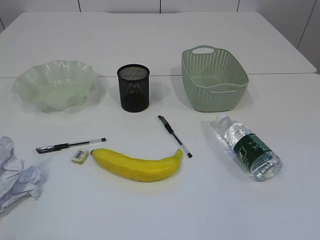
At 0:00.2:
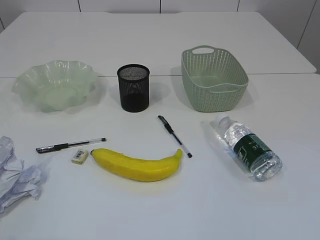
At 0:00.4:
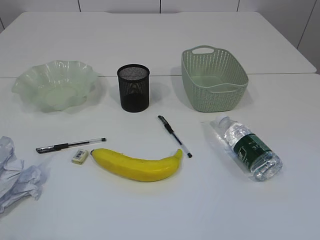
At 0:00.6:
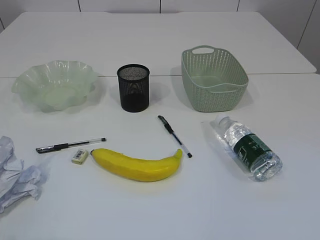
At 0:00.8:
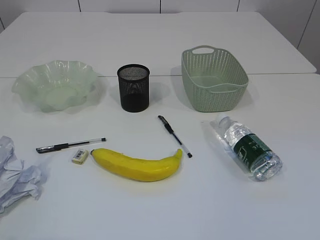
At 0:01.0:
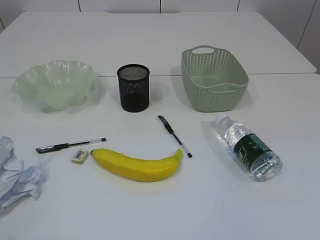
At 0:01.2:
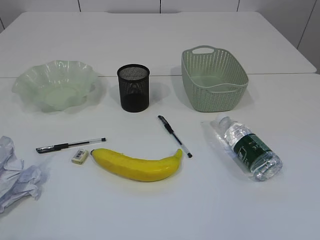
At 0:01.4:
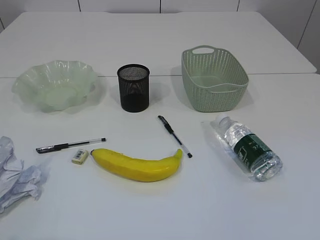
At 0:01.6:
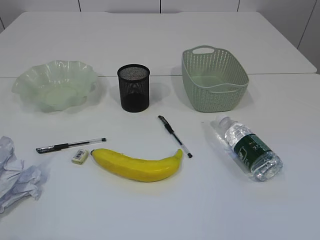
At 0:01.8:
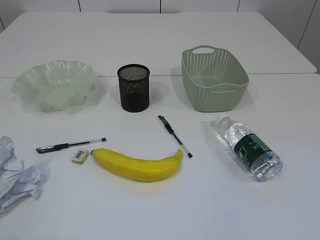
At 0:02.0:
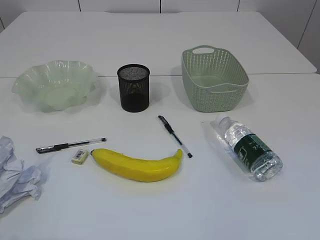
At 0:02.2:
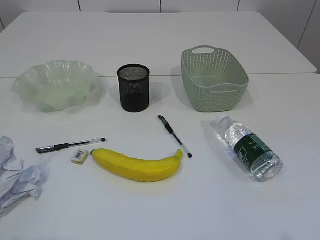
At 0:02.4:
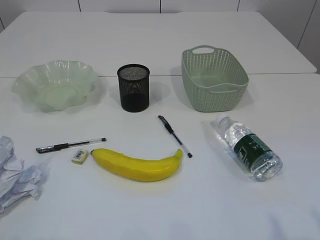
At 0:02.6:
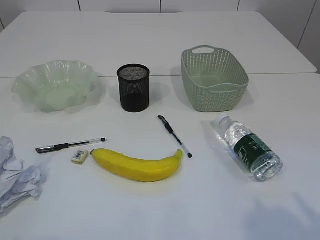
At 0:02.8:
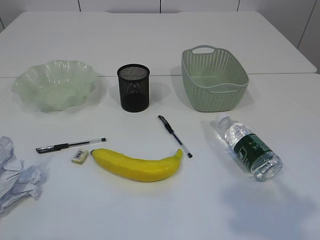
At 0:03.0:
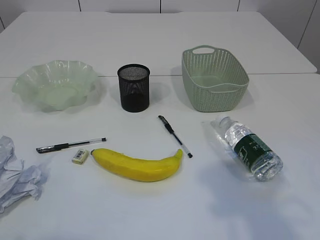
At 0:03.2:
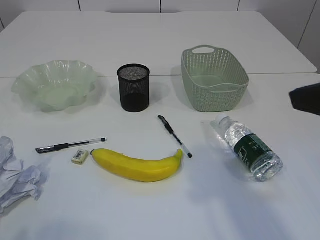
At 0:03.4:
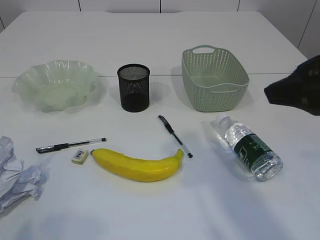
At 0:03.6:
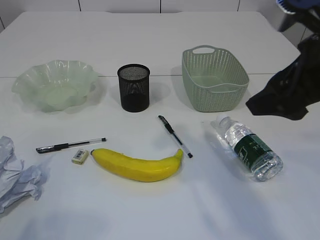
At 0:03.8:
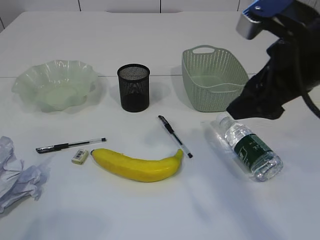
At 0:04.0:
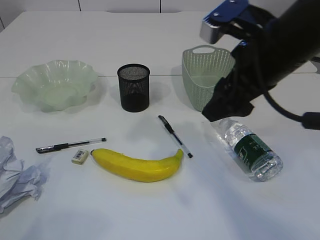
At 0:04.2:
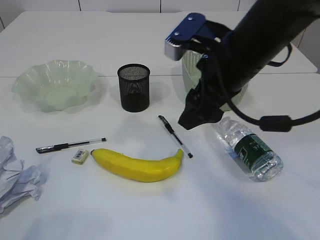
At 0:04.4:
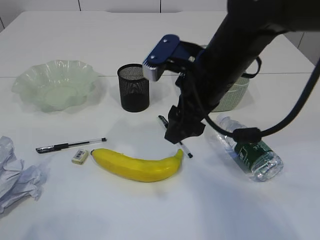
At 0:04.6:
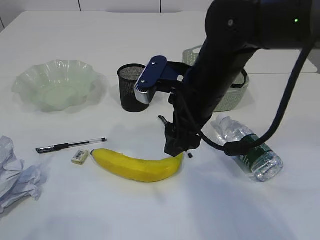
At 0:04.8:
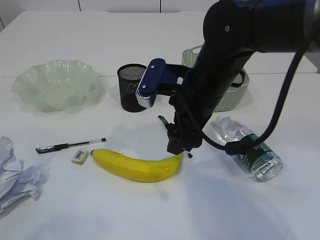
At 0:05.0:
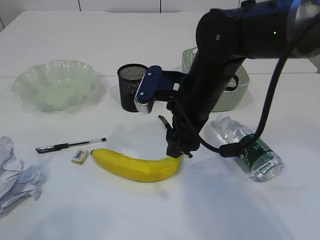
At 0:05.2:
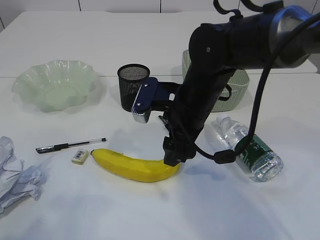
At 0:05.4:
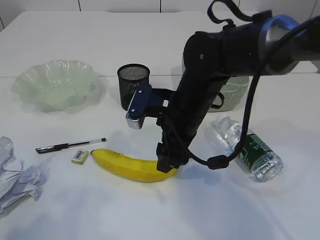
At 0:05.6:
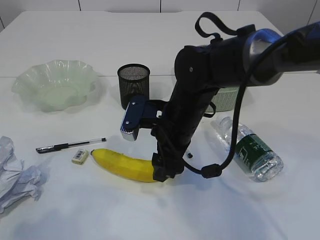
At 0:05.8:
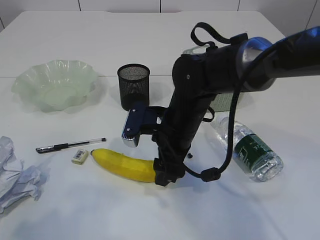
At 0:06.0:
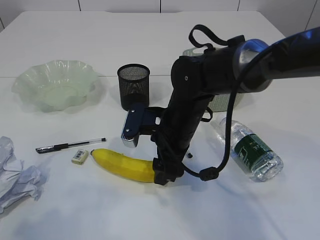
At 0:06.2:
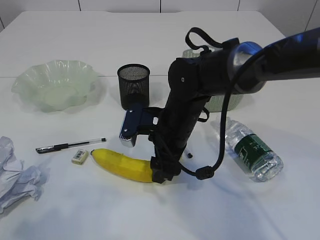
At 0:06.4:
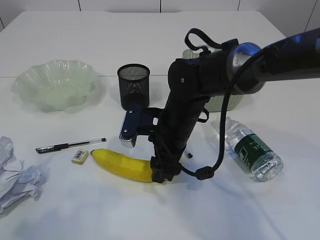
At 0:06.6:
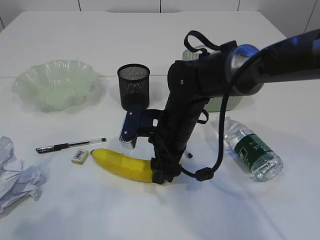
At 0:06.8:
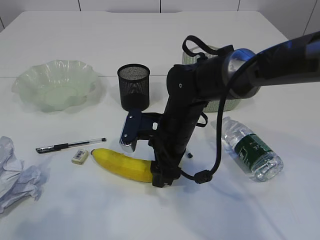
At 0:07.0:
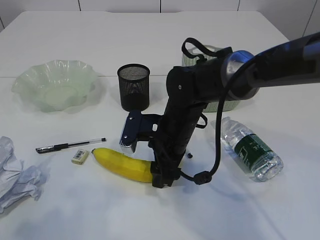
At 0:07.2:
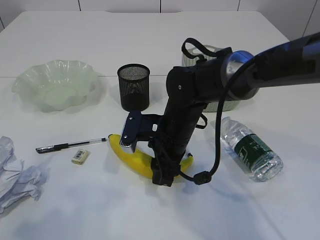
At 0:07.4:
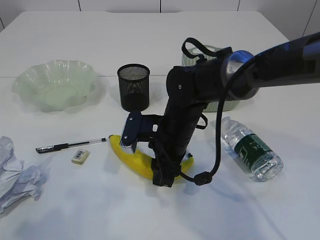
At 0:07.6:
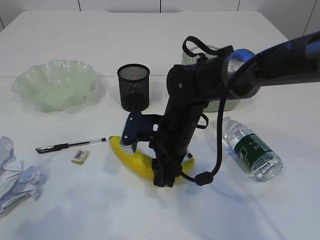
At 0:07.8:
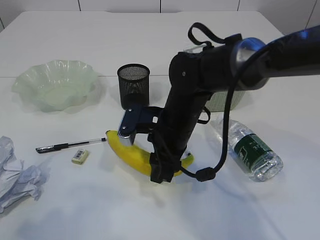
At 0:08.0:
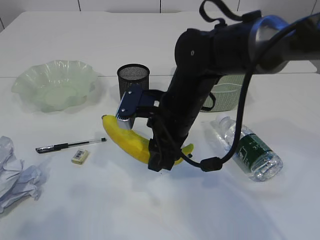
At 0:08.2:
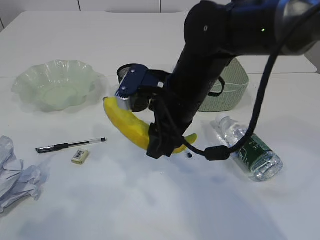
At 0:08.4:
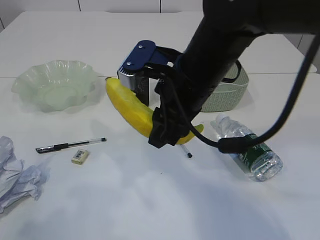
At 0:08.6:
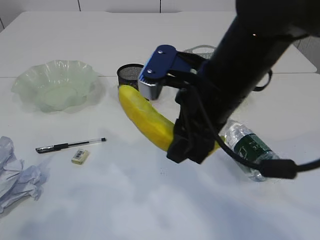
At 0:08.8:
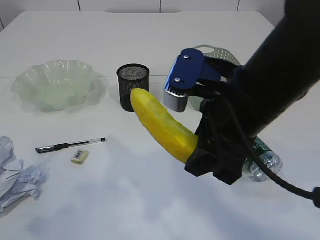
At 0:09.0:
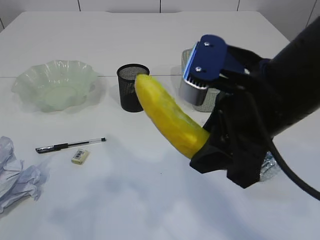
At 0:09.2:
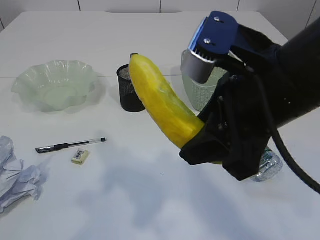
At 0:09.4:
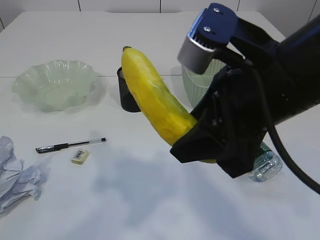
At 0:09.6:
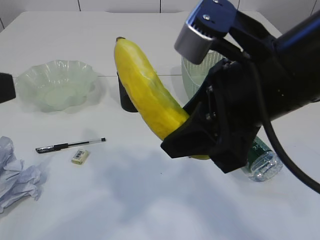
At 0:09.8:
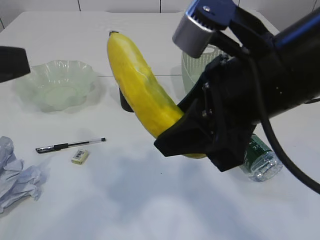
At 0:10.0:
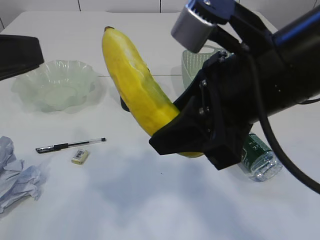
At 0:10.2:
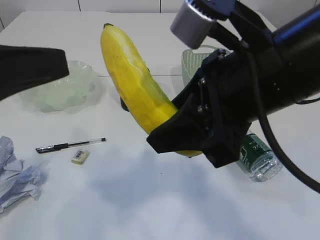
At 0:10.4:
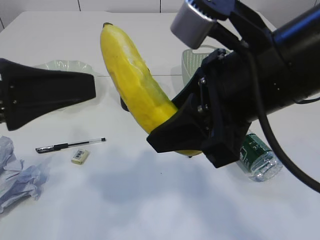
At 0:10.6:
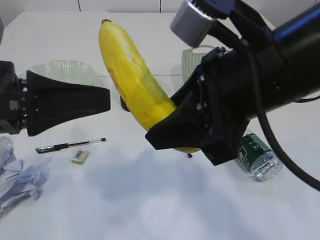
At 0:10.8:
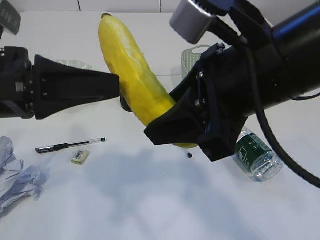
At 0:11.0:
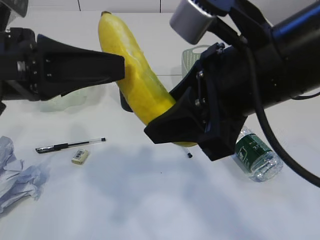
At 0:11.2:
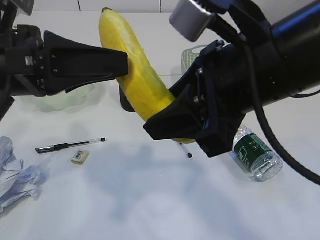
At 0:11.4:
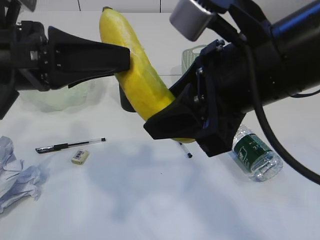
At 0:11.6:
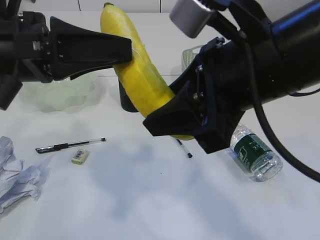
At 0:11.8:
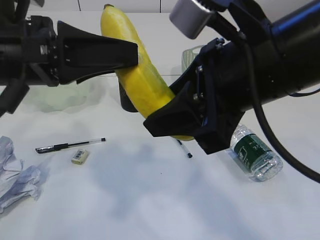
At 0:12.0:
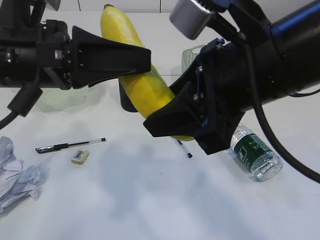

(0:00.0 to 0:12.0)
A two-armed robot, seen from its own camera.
0:01.6 - 0:03.0: The right gripper travels forward by approximately 15 cm.
0:03.0 - 0:04.4: The right gripper is displaced forward and to the left by approximately 25 cm.
0:04.4 - 0:06.0: The right gripper goes about 10 cm downward.
0:06.0 - 0:07.6: The right gripper closes up.
0:07.6 - 0:09.0: The right gripper shifts about 20 cm upward, backward and to the right.
0:09.0 - 0:10.4: The left gripper heads forward and to the right, covering roughly 15 cm.
0:10.4 - 0:12.0: The left gripper heads forward and to the right, covering about 10 cm.

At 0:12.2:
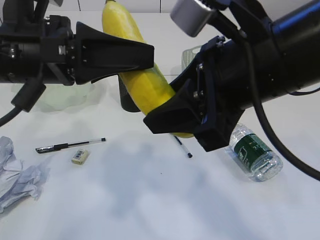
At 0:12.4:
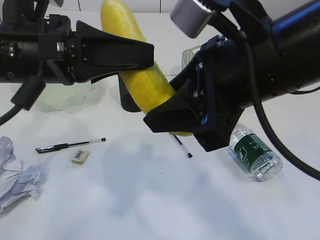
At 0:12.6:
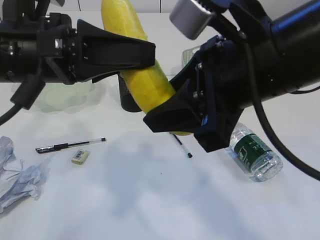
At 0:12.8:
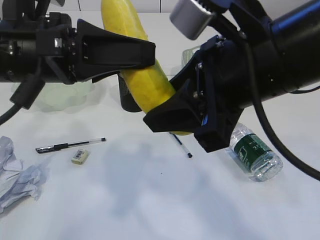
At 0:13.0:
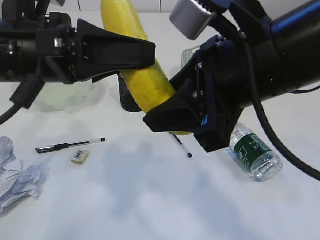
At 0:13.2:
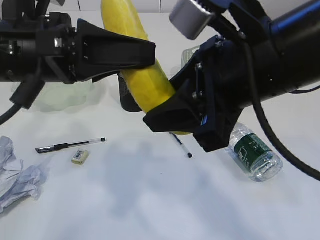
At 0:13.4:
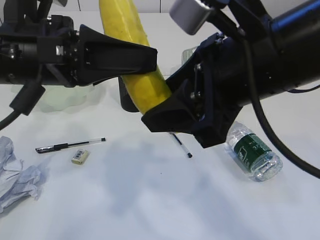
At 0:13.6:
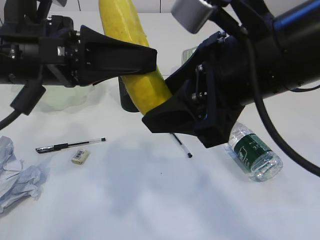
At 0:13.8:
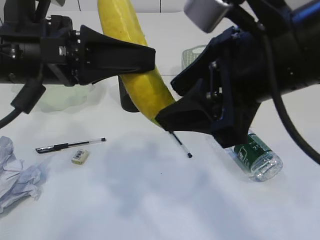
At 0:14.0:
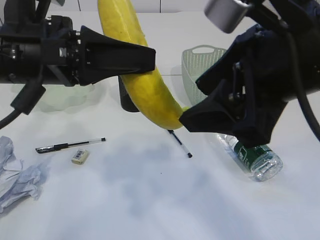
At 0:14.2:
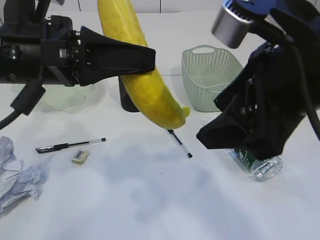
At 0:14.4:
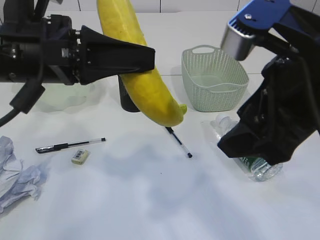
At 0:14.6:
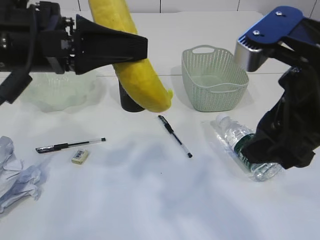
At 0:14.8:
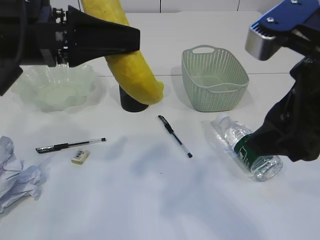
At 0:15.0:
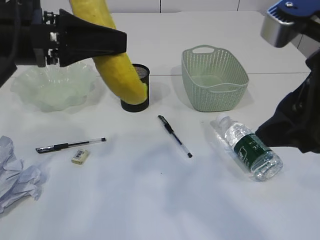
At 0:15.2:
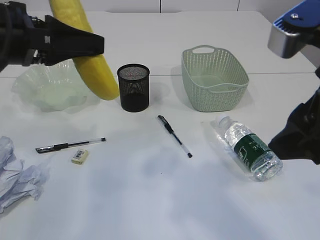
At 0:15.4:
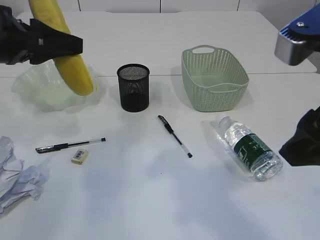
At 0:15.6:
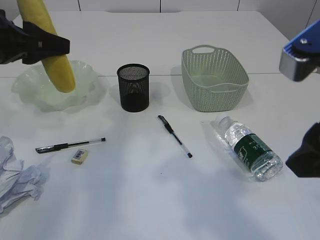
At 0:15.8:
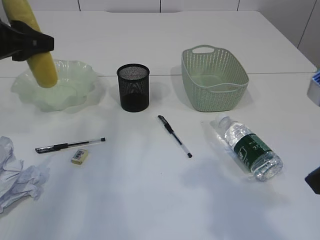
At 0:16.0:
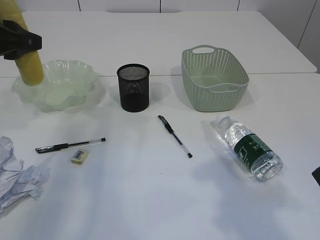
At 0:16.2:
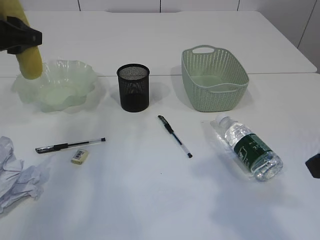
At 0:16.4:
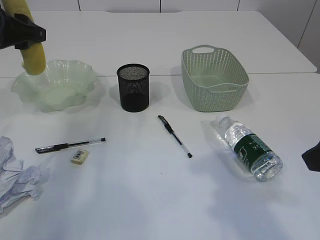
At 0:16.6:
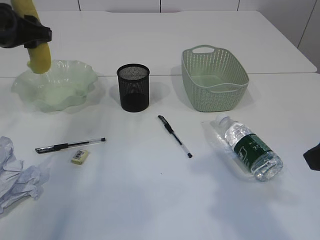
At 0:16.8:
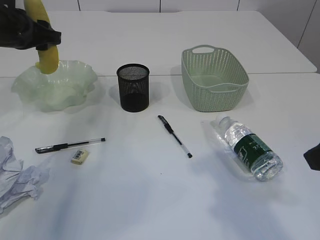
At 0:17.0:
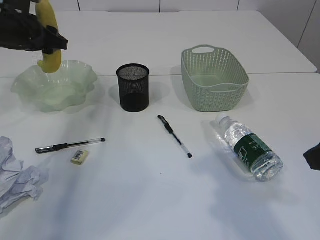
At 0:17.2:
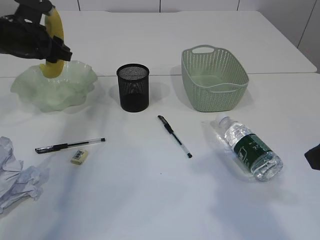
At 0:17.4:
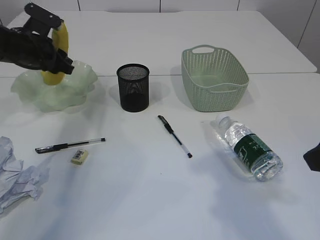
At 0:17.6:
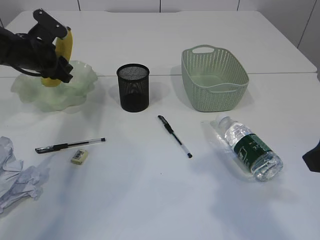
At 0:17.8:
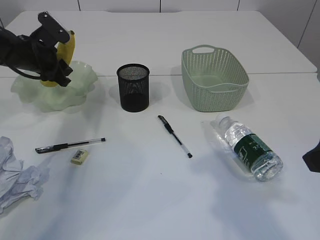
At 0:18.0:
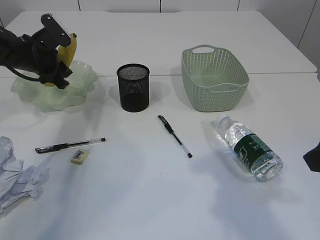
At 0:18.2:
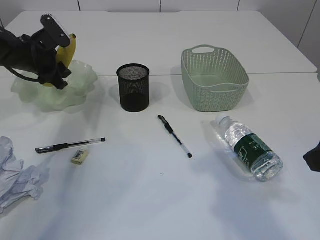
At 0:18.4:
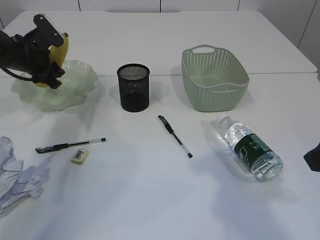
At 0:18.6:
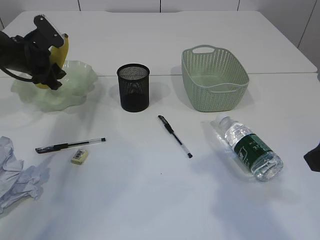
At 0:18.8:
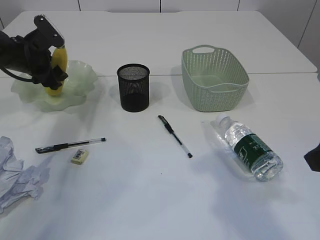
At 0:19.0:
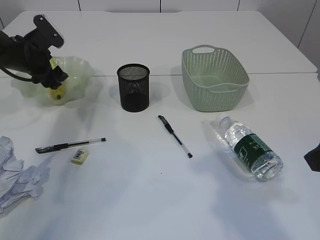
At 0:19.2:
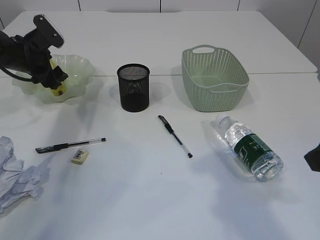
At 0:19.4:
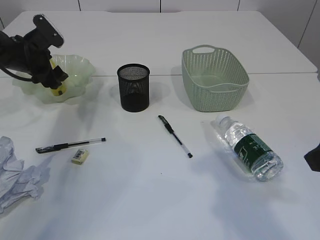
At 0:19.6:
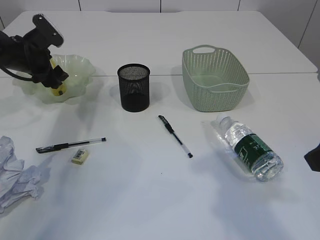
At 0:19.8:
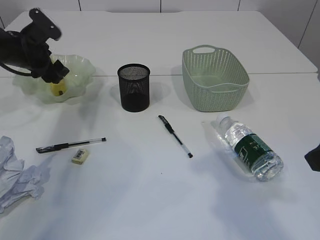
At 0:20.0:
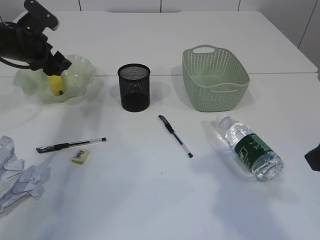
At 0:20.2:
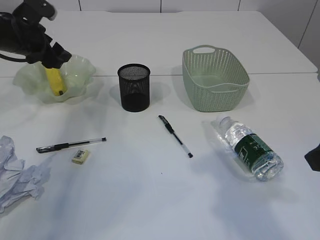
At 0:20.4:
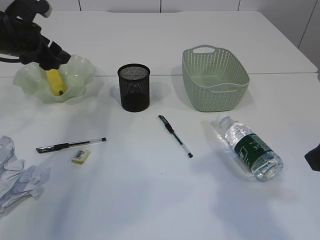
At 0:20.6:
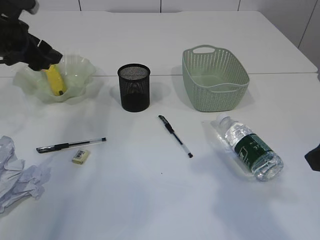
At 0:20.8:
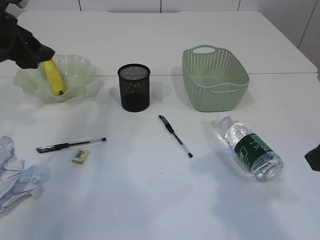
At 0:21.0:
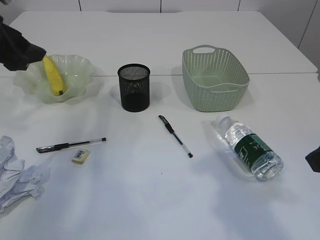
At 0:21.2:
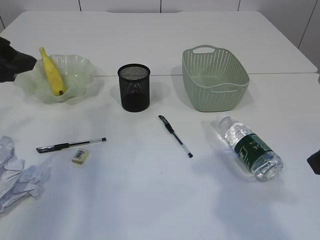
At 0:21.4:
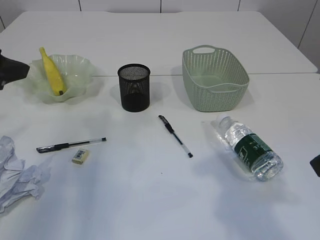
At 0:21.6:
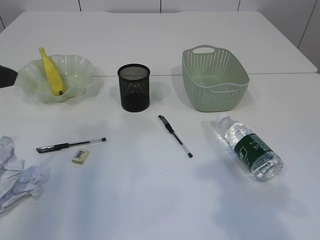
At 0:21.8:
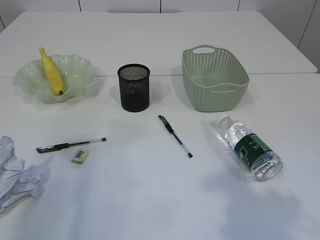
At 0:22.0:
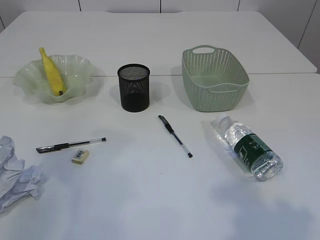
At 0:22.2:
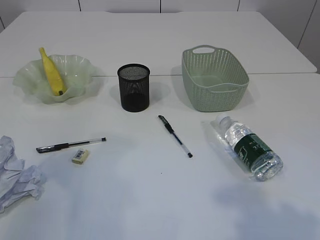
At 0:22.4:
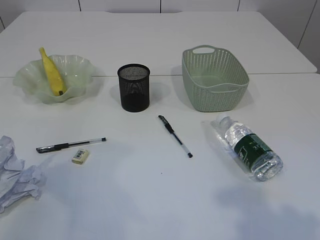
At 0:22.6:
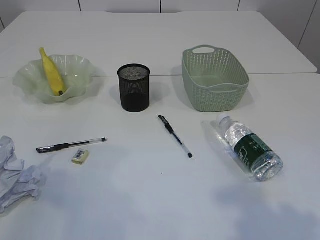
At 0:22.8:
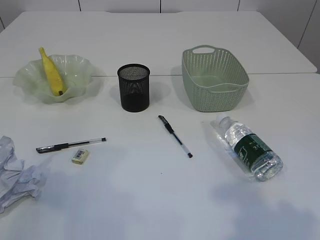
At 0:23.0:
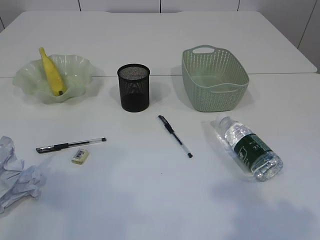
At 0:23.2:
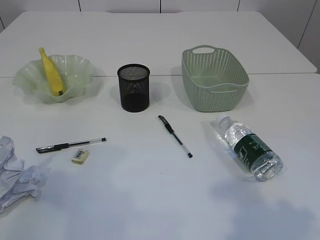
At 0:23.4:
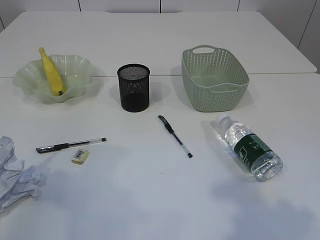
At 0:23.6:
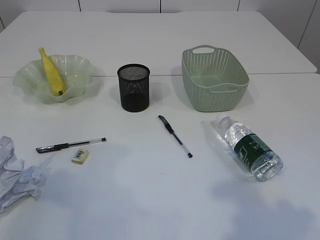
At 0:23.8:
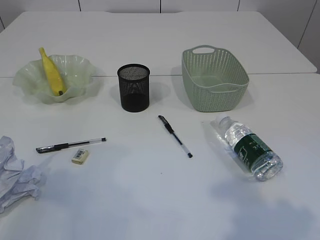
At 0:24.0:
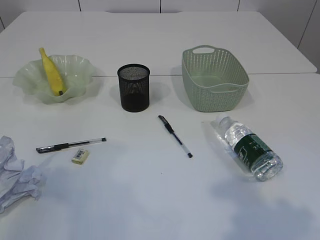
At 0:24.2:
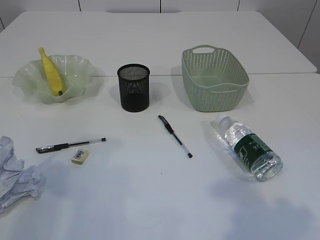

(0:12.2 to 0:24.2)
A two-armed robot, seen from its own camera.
Step, 0:12.2 - 0:15.0: Hand over the banana.
Step, 0:15.2 - 0:20.6: Place the banana in the plate.
0:12.2 - 0:13.8: The grippers stay close to where they were, moving slightly.
0:13.8 - 0:15.2: The right gripper moves to the right, some 5 cm. Meanwhile the left gripper shifts some 5 cm to the left.
0:15.2 - 0:16.6: The left gripper moves forward and to the left, approximately 15 cm; the right gripper shifts about 5 cm to the right.
0:16.6 - 0:18.2: The left gripper shifts approximately 15 cm downward and forward.
0:18.2 - 0:19.8: Both grippers stay put.
0:19.8 - 0:21.2: The left gripper is displaced backward and upward by roughly 20 cm.
0:21.2 - 0:22.6: The left gripper travels backward by some 15 cm. Meanwhile the right gripper is displaced backward by roughly 10 cm.
